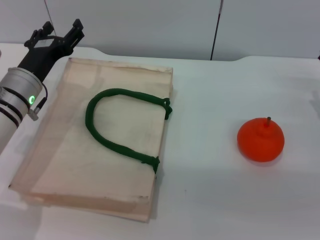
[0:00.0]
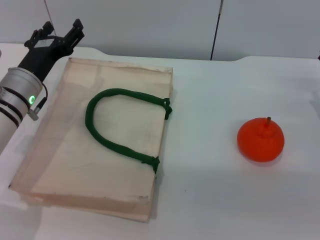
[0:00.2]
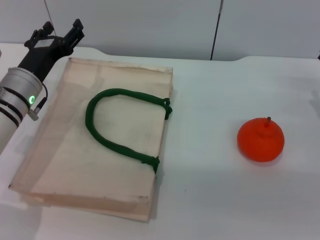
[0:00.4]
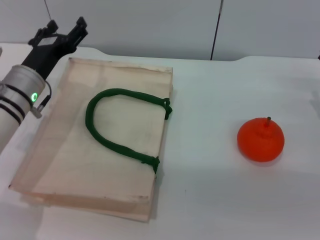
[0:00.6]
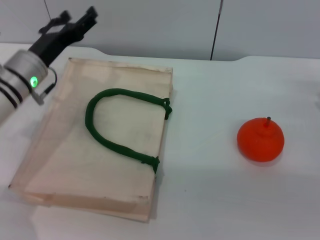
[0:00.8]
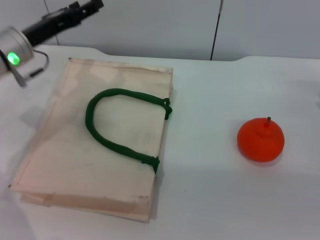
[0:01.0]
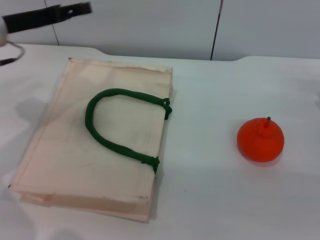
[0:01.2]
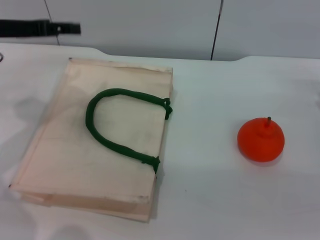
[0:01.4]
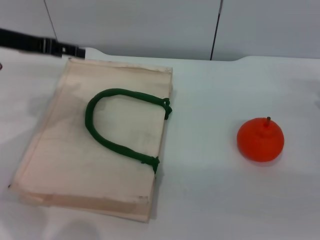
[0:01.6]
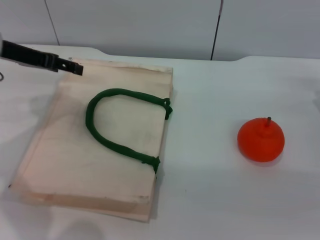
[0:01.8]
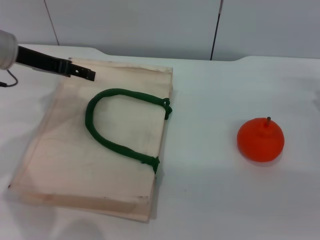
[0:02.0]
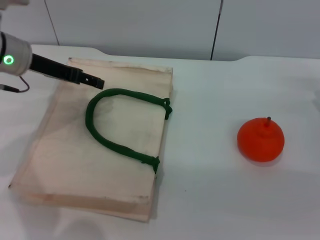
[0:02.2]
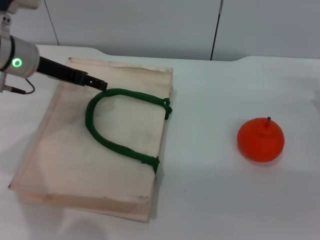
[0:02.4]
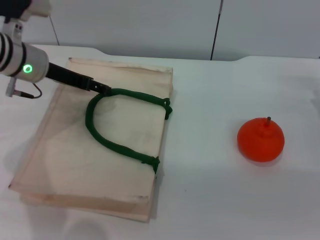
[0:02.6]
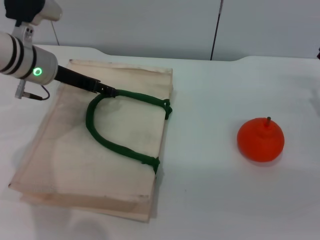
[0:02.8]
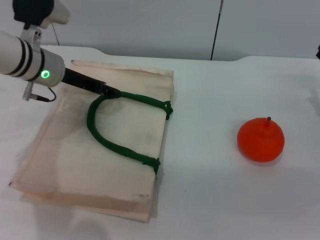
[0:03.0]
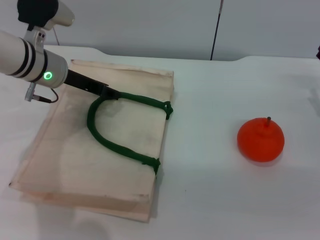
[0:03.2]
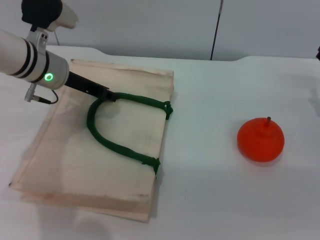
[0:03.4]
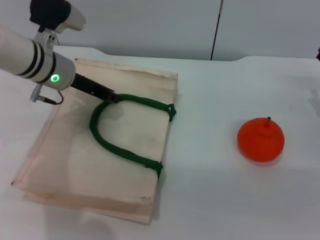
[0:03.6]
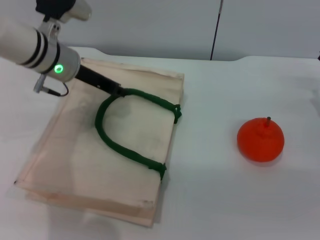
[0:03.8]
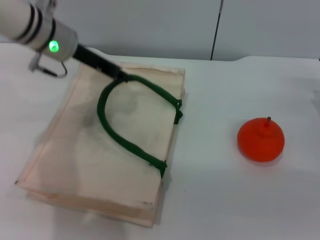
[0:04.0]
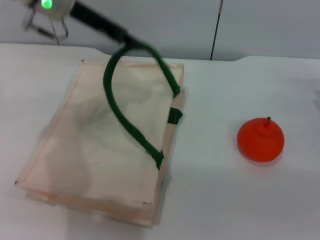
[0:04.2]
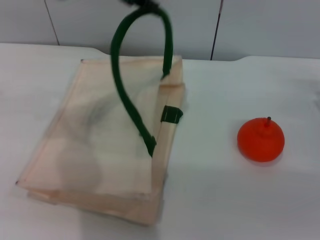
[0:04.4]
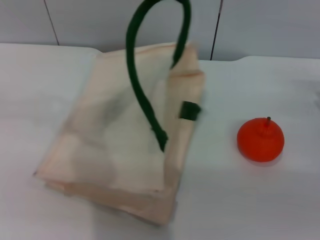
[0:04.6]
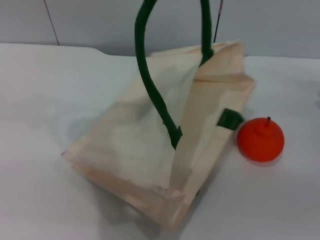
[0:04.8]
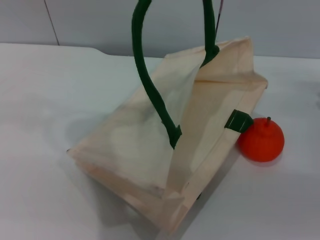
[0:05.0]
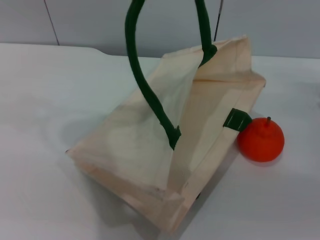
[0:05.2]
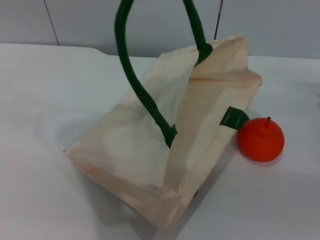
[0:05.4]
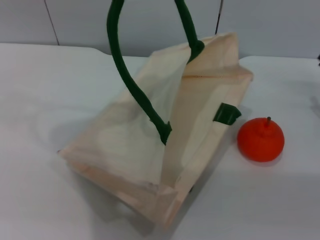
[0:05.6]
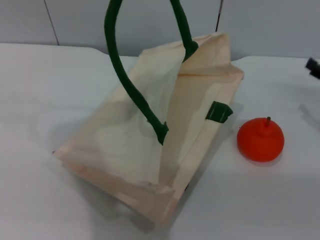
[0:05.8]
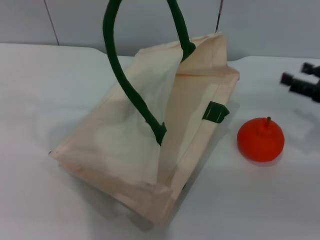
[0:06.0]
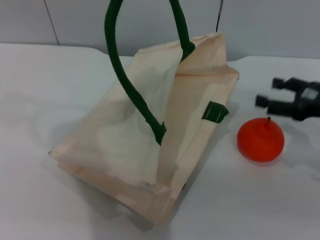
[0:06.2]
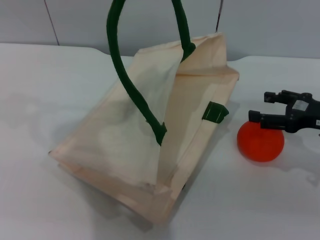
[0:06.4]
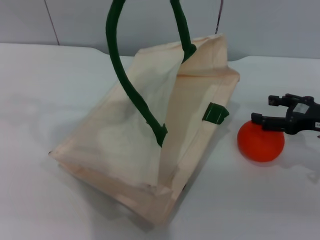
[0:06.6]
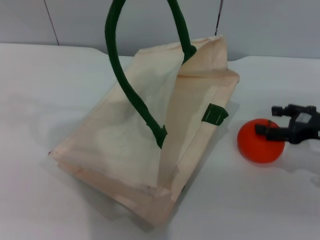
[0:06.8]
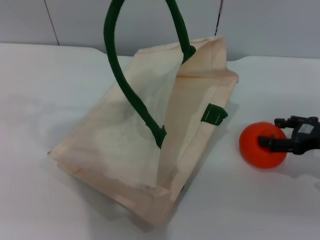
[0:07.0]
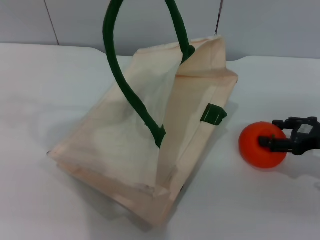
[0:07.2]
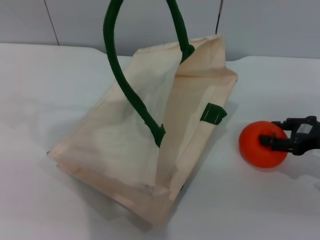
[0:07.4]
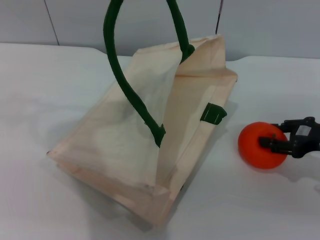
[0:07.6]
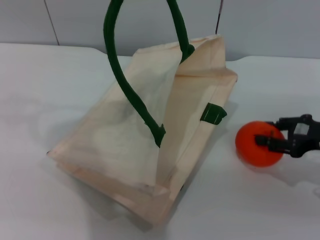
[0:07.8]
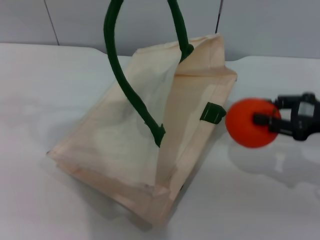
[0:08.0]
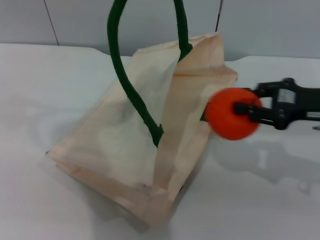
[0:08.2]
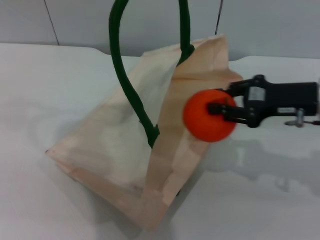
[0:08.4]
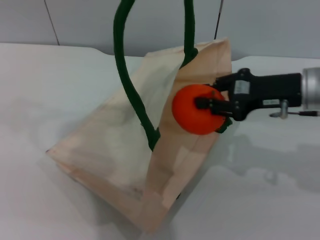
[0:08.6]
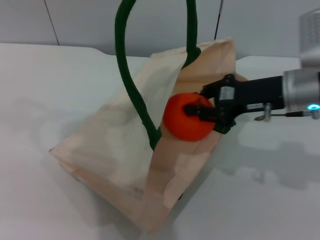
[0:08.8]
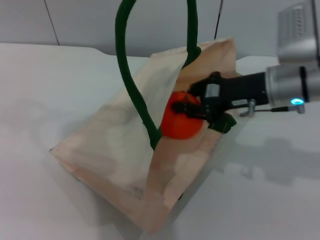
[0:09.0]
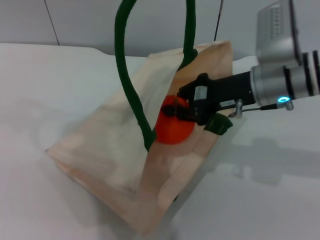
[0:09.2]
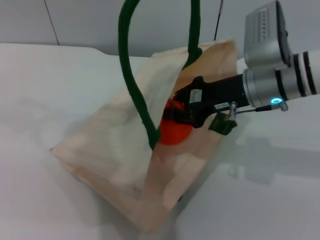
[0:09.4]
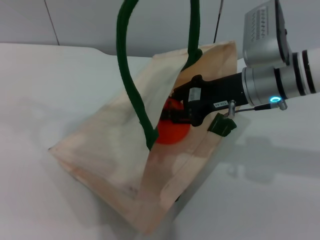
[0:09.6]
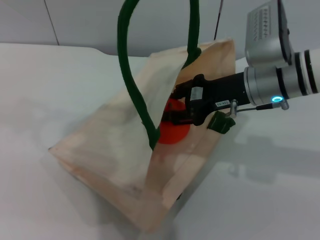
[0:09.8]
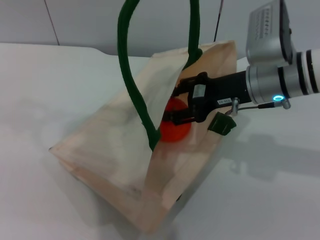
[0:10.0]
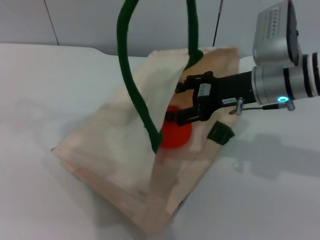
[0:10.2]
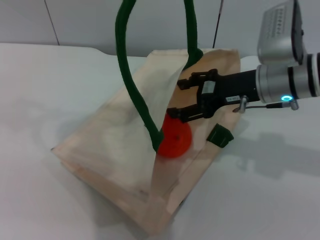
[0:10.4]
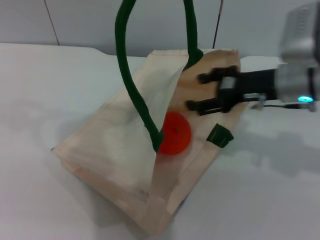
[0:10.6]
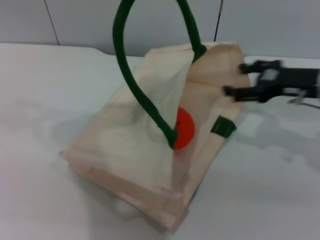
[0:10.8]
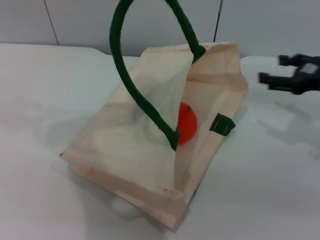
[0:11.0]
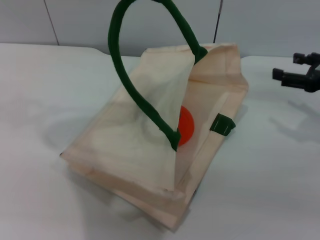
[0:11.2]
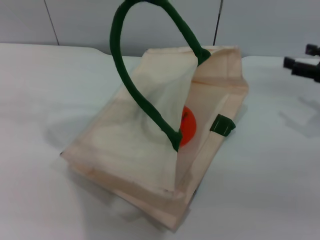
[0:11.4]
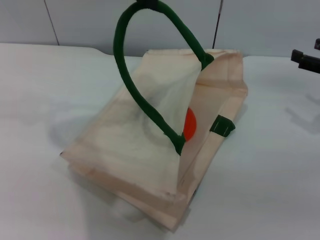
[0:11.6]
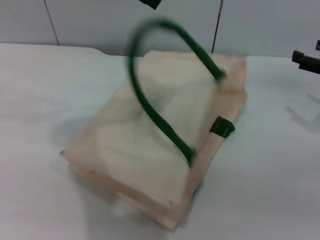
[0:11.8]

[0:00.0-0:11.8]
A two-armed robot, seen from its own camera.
Task of the whole recording: pick up the orange from the table and place it in the white handbag.
Step, 0:00.0 to 0:04.8: Lift the woven bag with the left gripper to open it.
Step, 0:05.0 to 0:07.8: Pick up the orange with the right gripper.
Step, 0:08.2 to 0:10.6: Place the orange into the woven bag with the right gripper.
0:00.0 to 0:01.4: The left gripper goes roughly 15 cm upward and to the left.
0:01.4 to 0:03.0: The left gripper goes roughly 10 cm to the right and downward.
0:03.0 to 0:04.4: The left gripper travels upward by about 20 cm, and closes.
0:04.4 to 0:06.0: The grippers both shift upward by approximately 5 cm.
0:07.4 to 0:08.8: The right gripper goes roughly 15 cm to the left and upward, and closes.
0:08.8 to 0:10.4: The right gripper opens its fingers.
0:10.4 to 0:11.8: The right gripper heads to the right, covering roughly 20 cm.

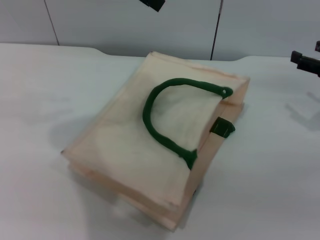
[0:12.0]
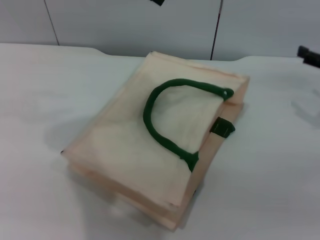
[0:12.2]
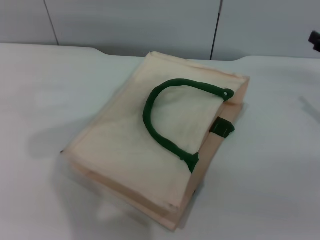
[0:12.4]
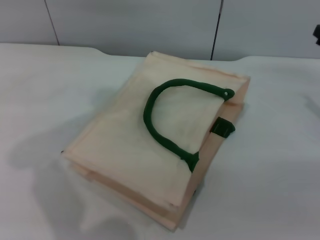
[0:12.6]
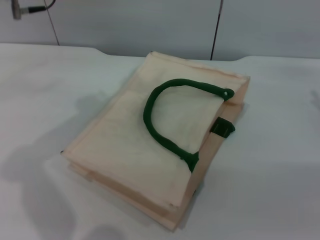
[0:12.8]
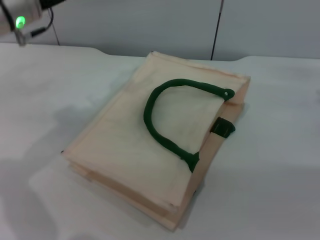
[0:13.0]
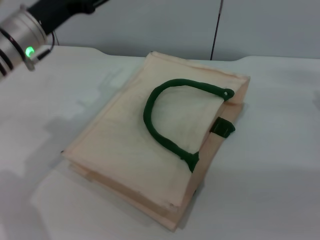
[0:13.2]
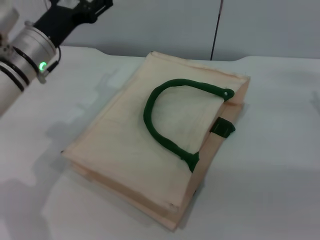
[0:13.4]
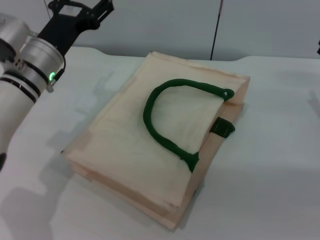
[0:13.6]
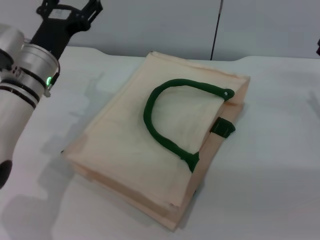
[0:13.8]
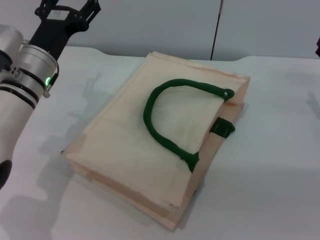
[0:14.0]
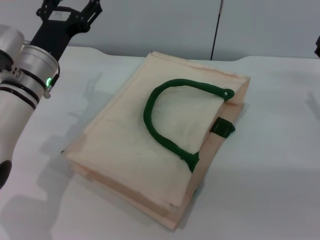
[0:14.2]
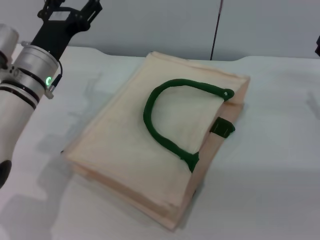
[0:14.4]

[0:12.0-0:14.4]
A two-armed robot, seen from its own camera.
Task of the whole recording: pick up the orange from the table and place it in the white handbag.
0:12.0 to 0:13.2: The left gripper moves downward, approximately 20 cm, and opens its fingers; the right gripper shifts by about 5 cm.
0:13.2 to 0:14.4: The left gripper heads downward, covering roughly 5 cm.
